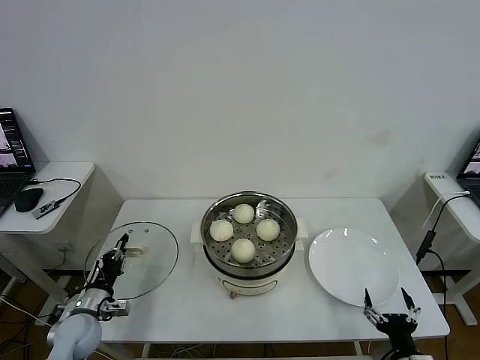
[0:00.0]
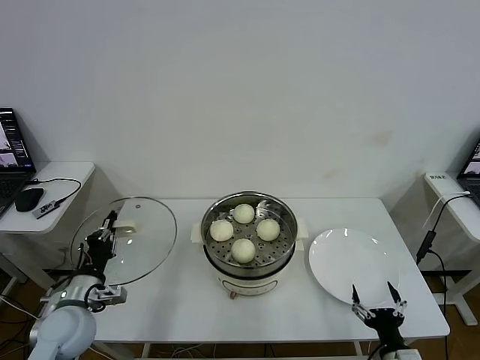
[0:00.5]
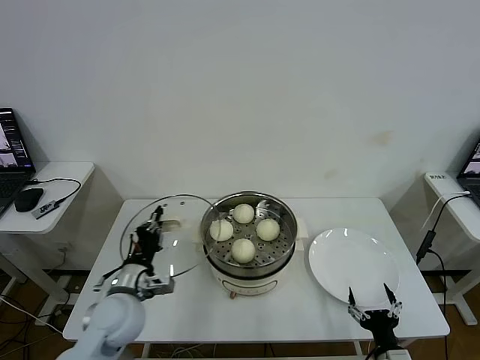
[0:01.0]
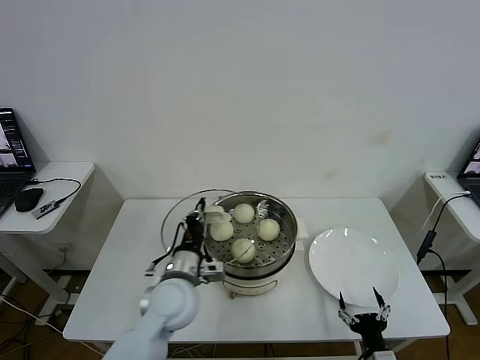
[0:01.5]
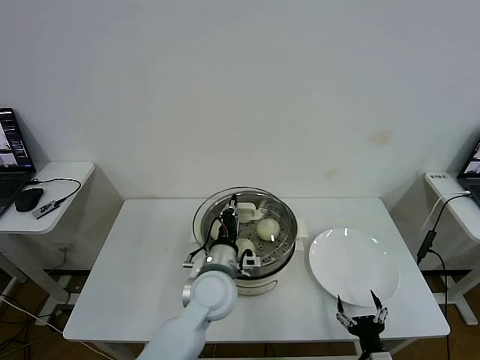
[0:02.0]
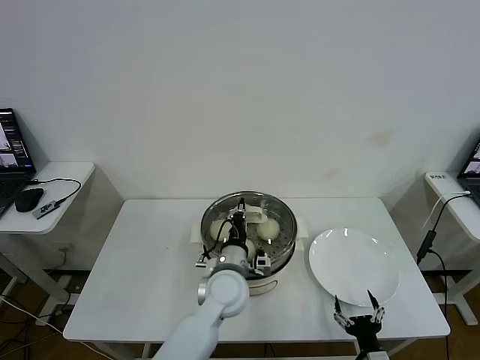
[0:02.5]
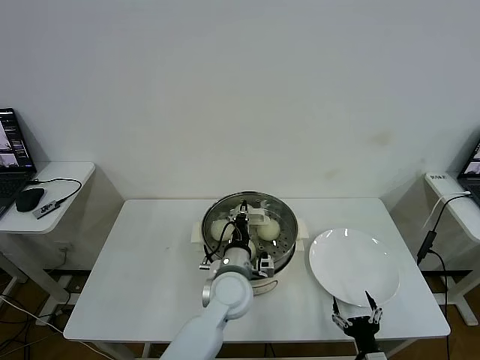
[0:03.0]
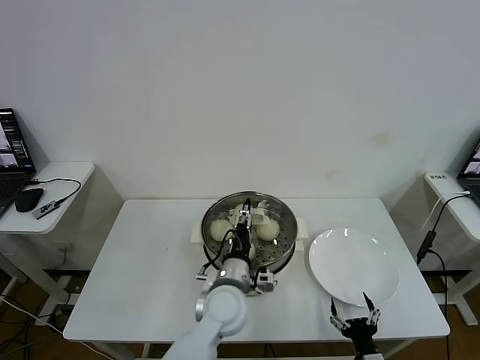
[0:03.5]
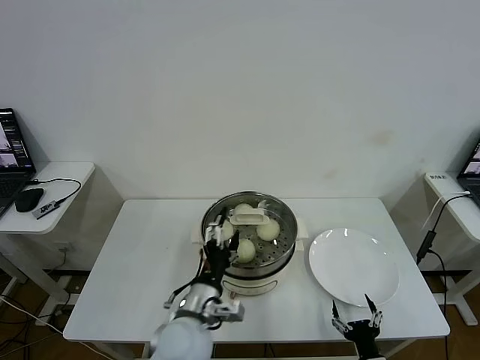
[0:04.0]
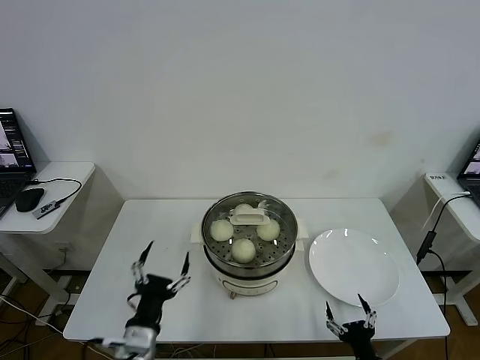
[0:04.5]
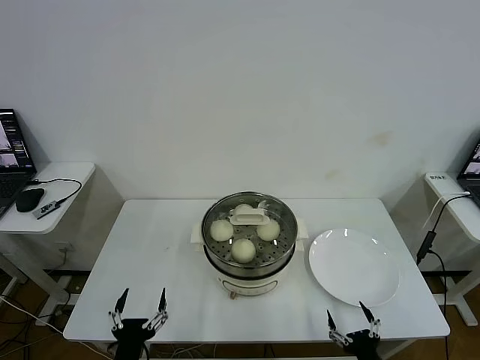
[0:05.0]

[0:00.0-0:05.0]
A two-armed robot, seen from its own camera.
Task of the whole recording: take steamed baozi put them in steamer then cover it.
Step, 0:00.0 to 0:03.0: Place the pot lid on the steamer with left gripper.
0:00.0 to 0:02.5: The left gripper travels to the right by approximately 35 cm, while the right gripper changes place by approximately 5 cm.
0:02.5 to 0:05.0: The left gripper goes approximately 30 cm backward and to the left, and opens.
